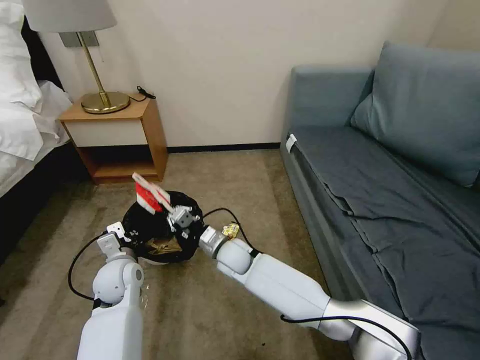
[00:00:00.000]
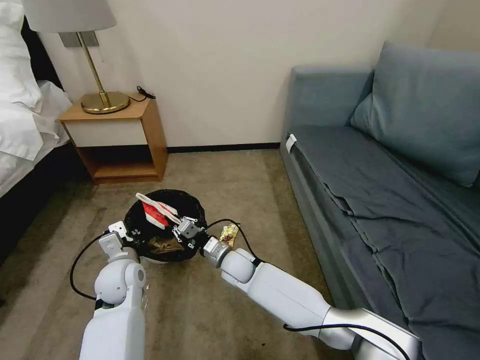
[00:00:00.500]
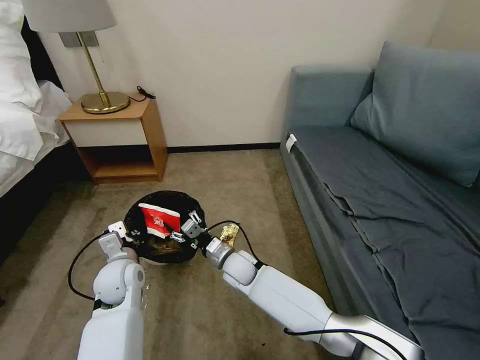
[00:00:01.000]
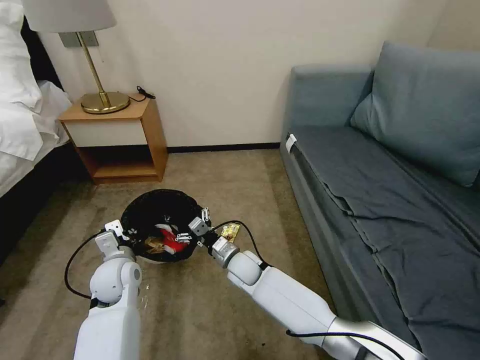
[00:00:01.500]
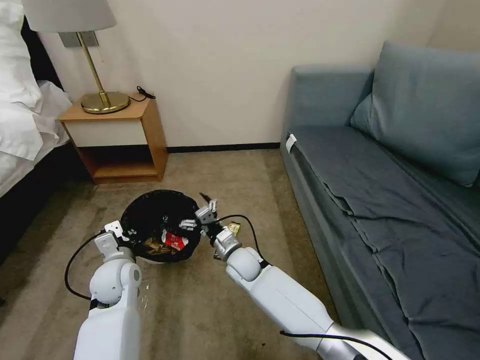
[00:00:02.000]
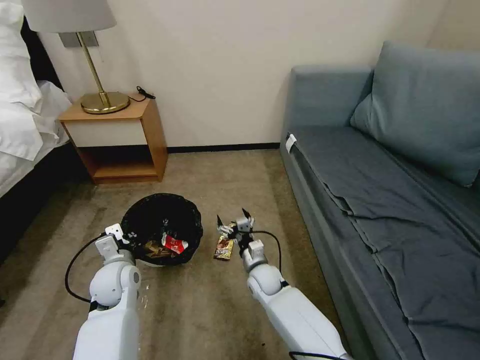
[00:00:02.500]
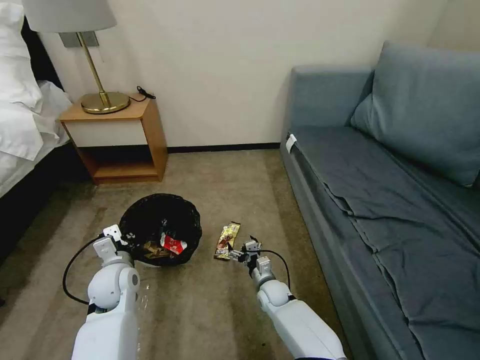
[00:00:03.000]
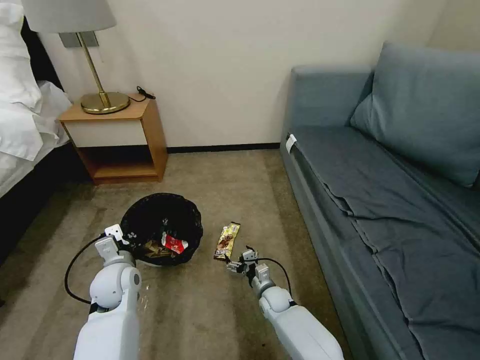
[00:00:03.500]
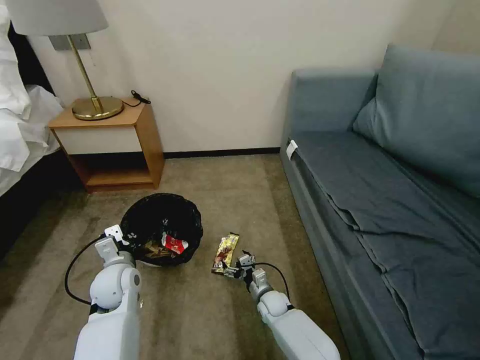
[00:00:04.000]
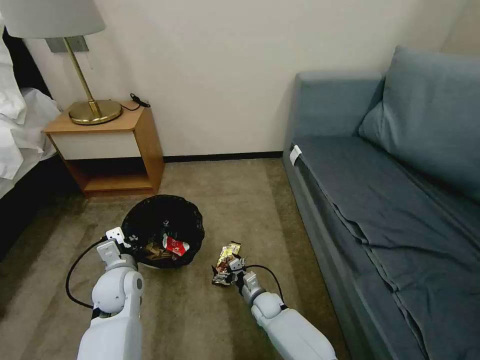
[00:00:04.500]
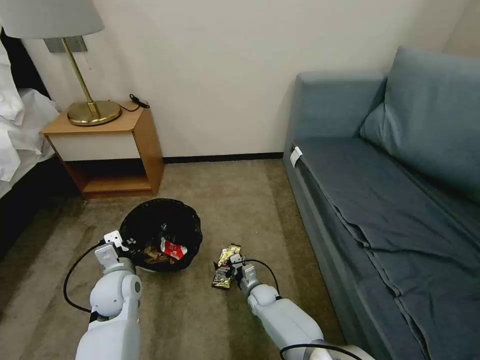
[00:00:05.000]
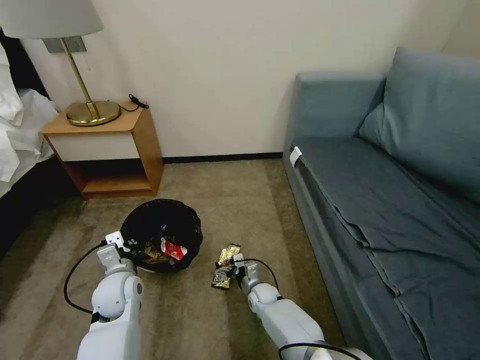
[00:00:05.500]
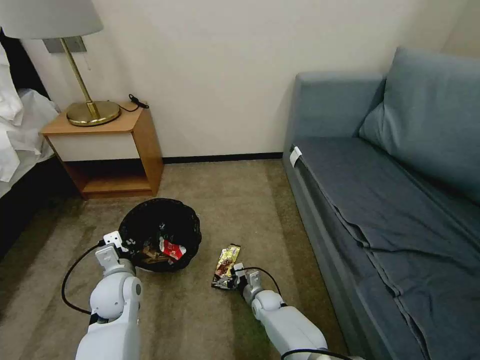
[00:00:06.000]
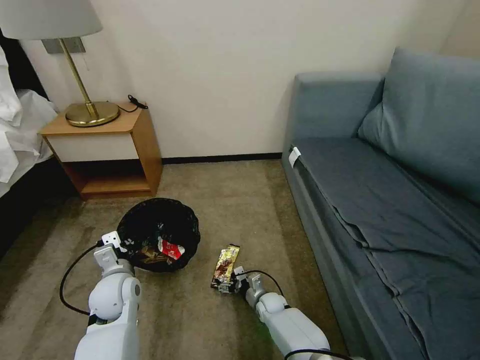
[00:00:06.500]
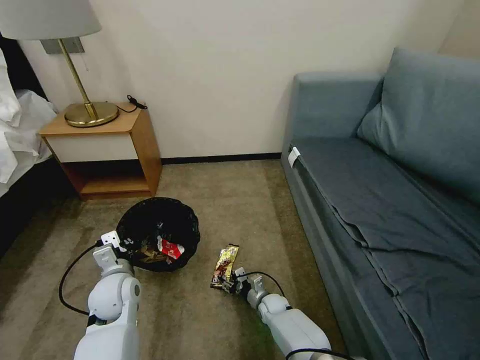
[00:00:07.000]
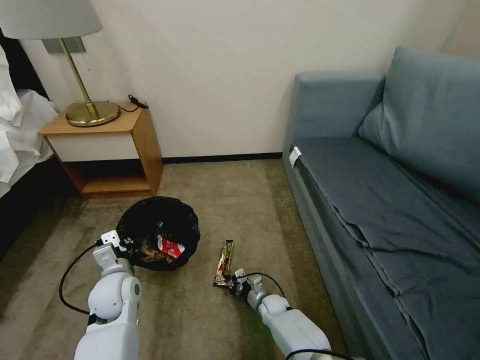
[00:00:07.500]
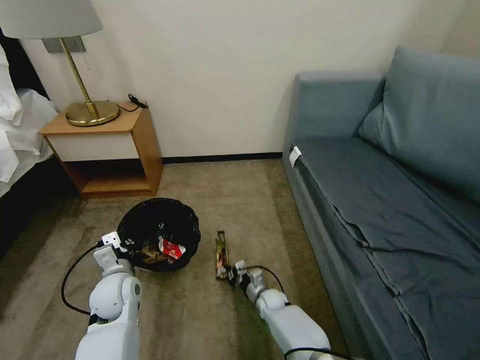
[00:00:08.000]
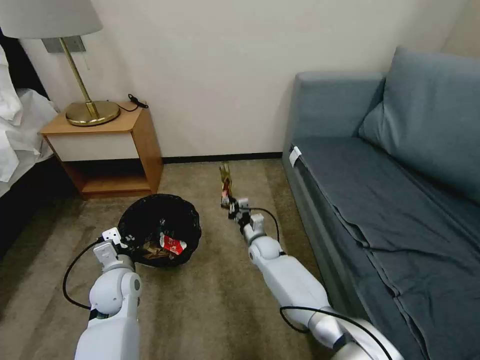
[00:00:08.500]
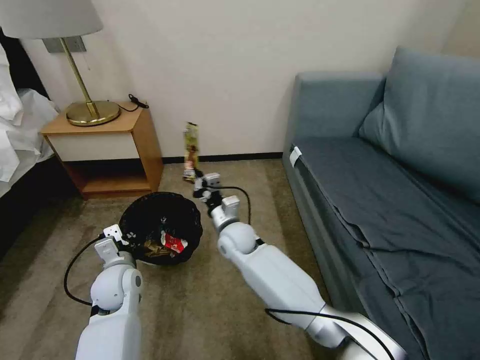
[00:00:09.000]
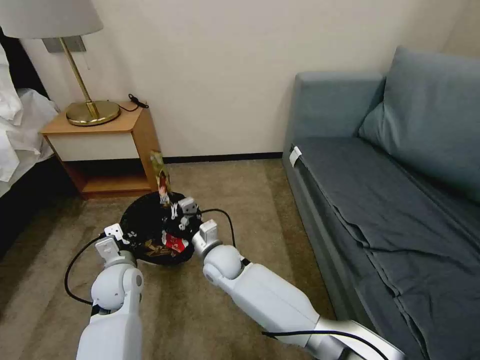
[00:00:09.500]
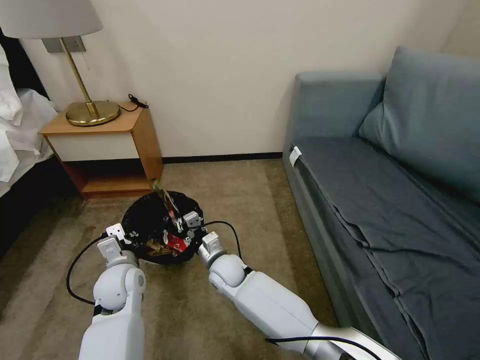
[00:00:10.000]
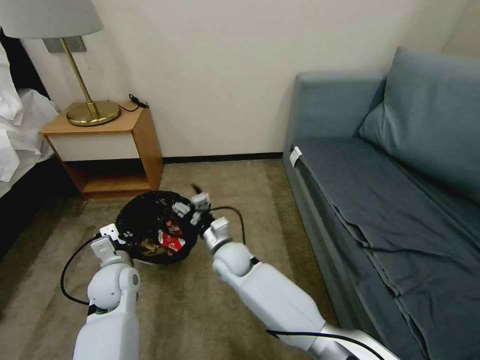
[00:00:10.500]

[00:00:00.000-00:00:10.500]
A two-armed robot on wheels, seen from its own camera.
Task of the whole recording: Pick up the trash bin, then pick up the garbage on the floor and place it into the trash bin.
00:00:00.000 to 00:00:02.000: The right gripper opens its fingers.
00:00:02.000 to 00:00:04.000: The right gripper heads downward and to the right, covering about 20 cm.
00:00:04.000 to 00:00:06.500: The grippers make only small movements.
00:00:06.500 to 00:00:08.500: The right gripper travels upward and forward by roughly 20 cm, and closes up.
00:00:08.500 to 00:00:10.500: The right gripper goes about 15 cm to the left, upward and backward, and opens.

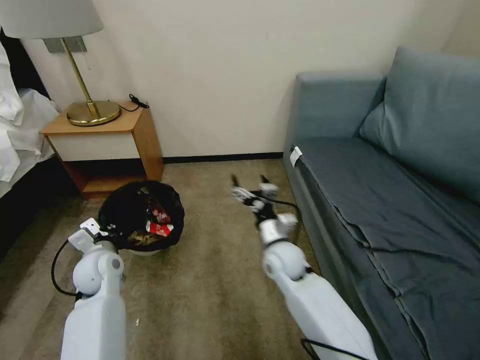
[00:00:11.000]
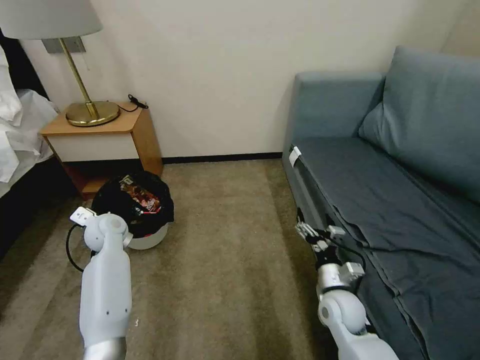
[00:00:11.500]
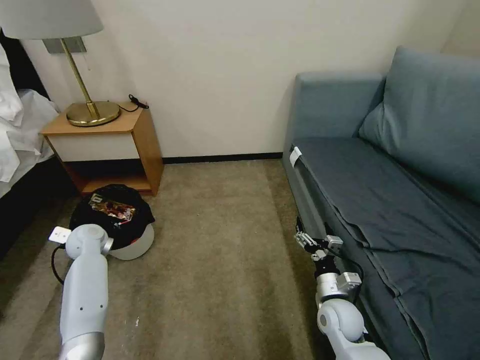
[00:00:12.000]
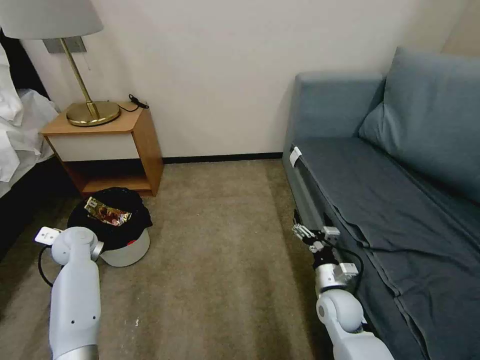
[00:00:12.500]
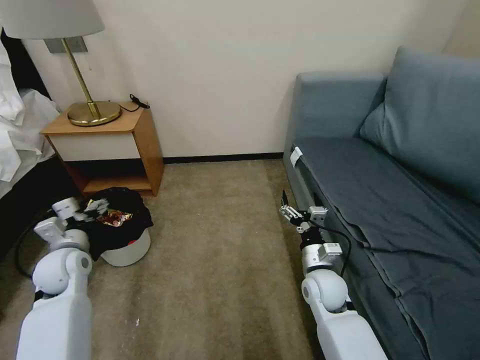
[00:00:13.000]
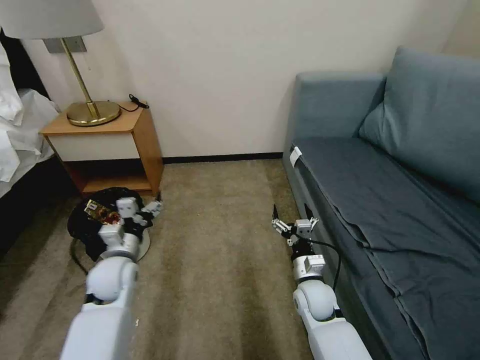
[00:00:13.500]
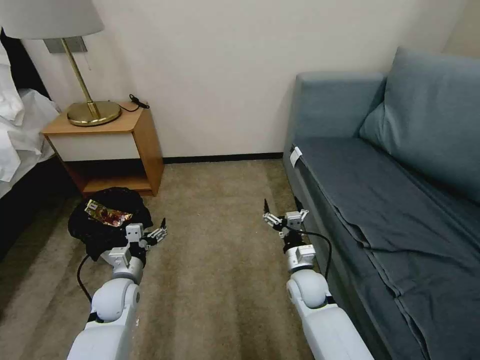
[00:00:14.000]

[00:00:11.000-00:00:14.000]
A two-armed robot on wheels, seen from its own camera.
Task of the whole recording: Pick up the trash bin, then pick up the garbage on the floor and place it into the trash bin.
00:00:11.000 to 00:00:12.500: The left gripper is displaced to the left and forward by about 10 cm, and opens. Meanwhile the right gripper shifts roughly 15 cm to the right, backward and downward.
00:00:12.500 to 00:00:14.000: The right gripper heads to the left and forward, covering some 10 cm, while the left gripper travels to the right, backward and downward by roughly 20 cm, and opens up.

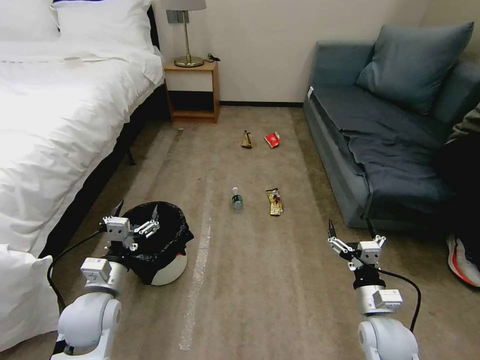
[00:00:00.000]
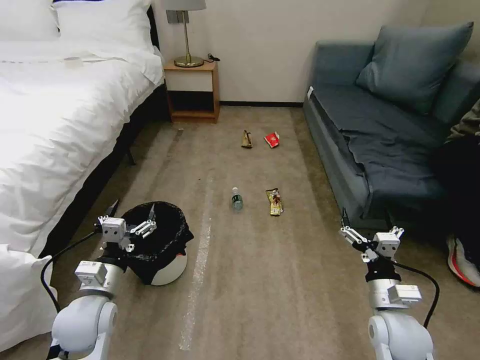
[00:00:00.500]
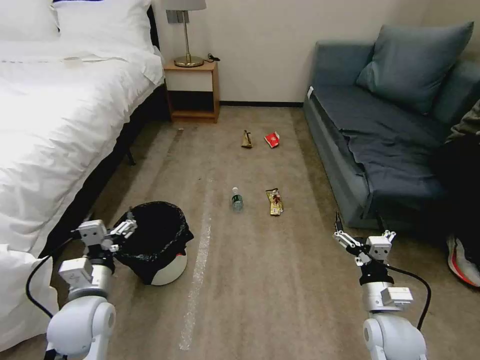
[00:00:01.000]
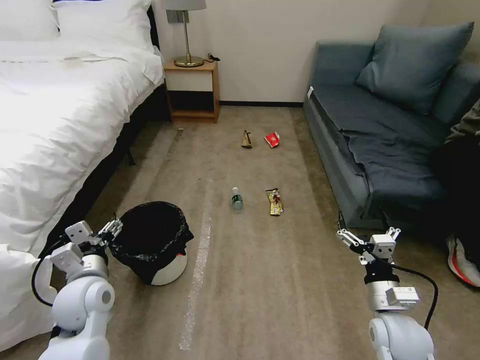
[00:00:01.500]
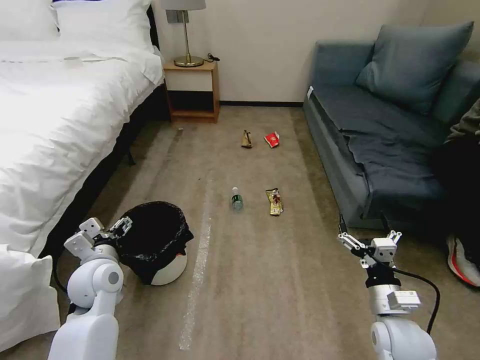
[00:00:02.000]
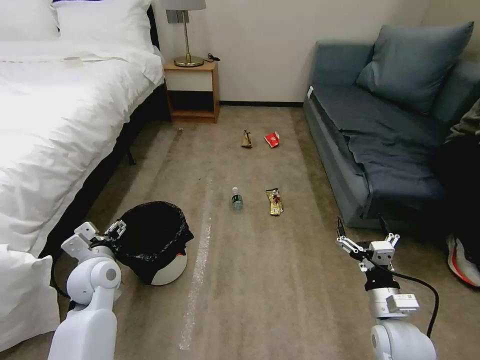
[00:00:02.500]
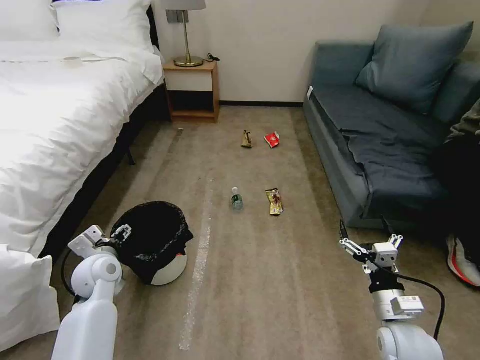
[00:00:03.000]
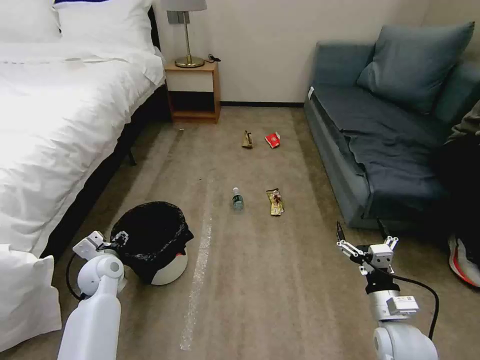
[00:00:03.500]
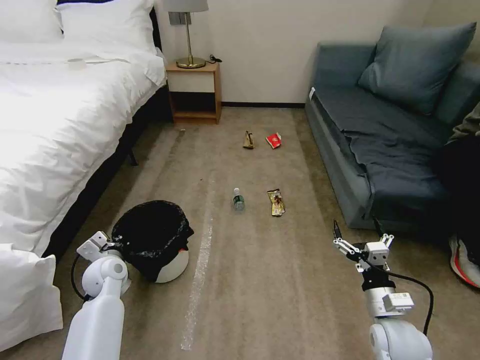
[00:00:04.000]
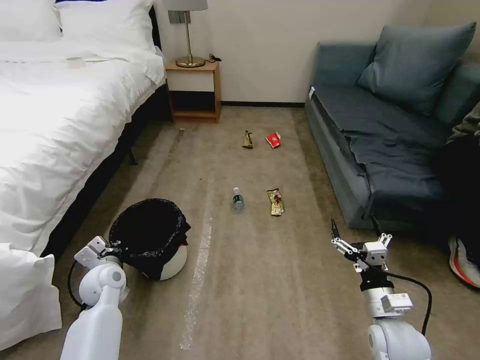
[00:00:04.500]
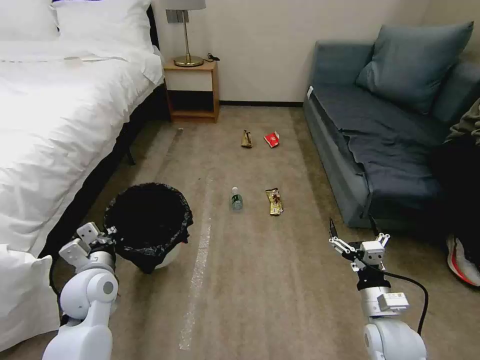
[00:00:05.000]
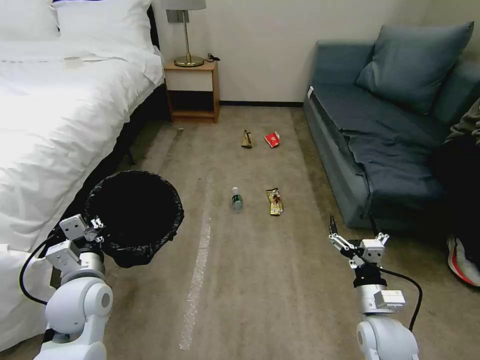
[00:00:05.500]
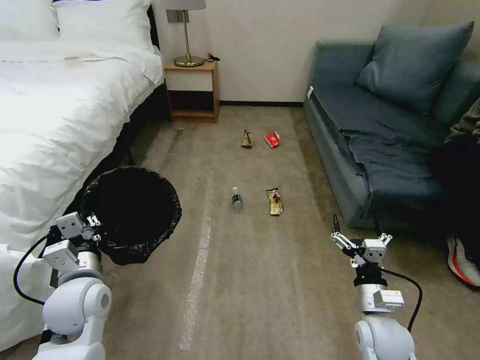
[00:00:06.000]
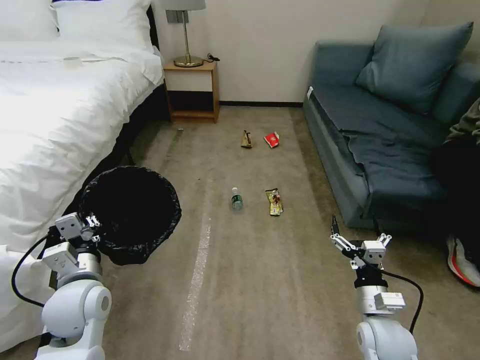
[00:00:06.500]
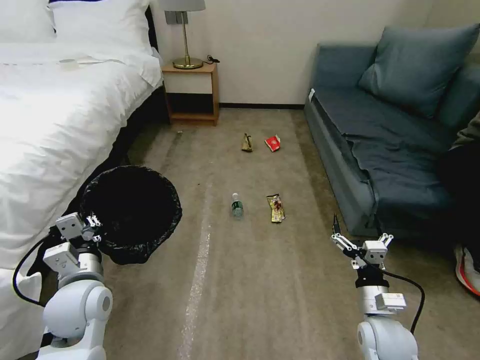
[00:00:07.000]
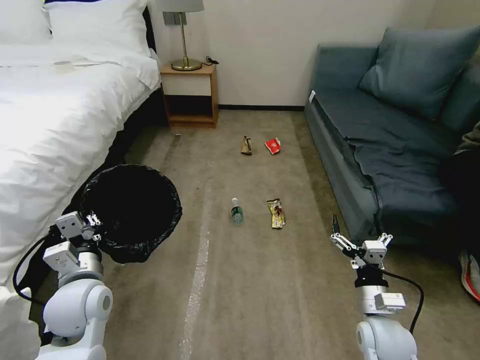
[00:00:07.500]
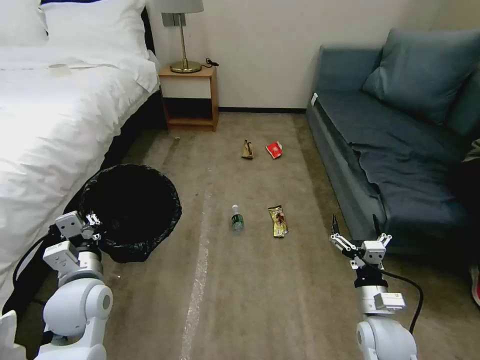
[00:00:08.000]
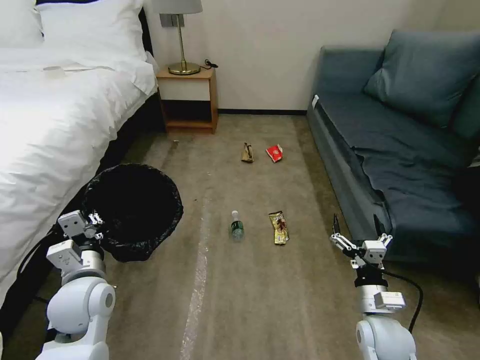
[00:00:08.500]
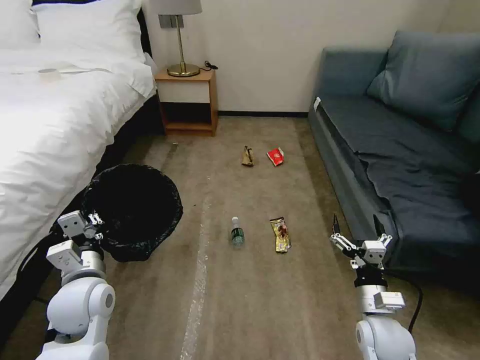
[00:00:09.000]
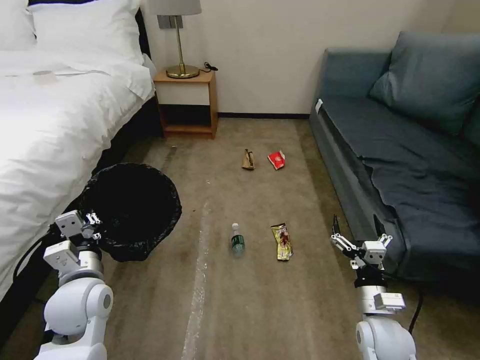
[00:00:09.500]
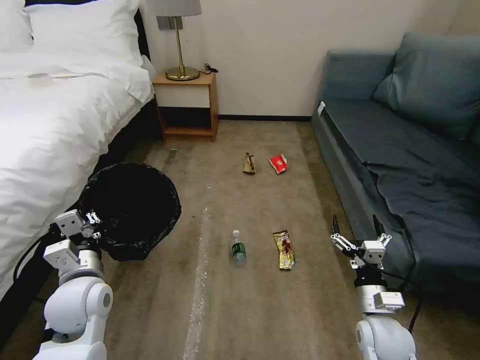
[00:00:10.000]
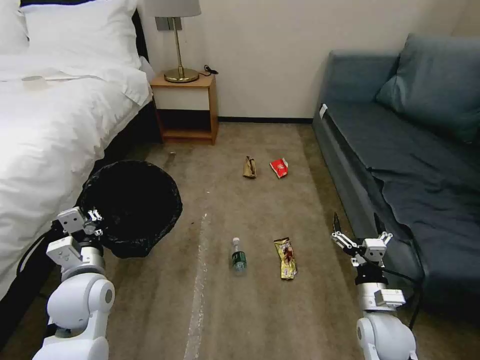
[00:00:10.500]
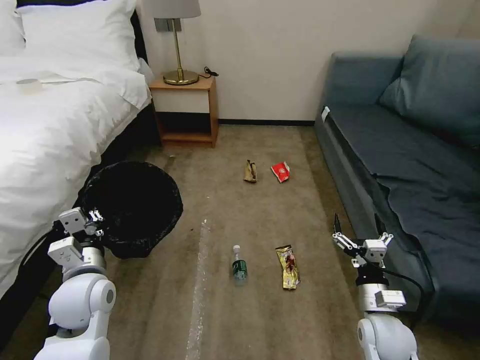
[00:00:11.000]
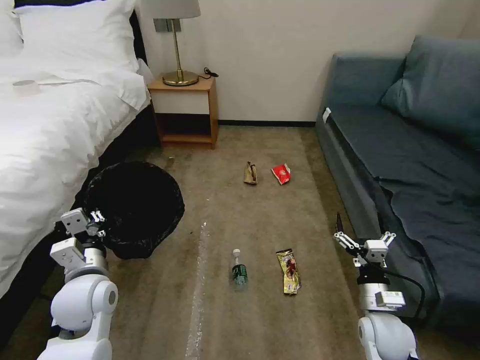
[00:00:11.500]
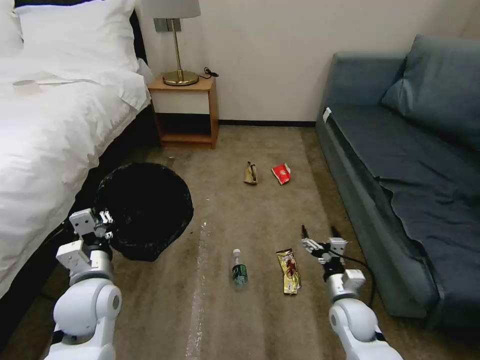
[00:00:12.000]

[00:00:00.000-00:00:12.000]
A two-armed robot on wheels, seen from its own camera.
Task of the whole recording: Pick up the trash bin, then pick up the garbage on the floor and place it into the trash bin.
00:00:02.000 to 00:00:04.000: The left gripper shifts about 10 cm downward, and closes.
00:00:04.000 to 00:00:06.000: The left gripper travels upward and backward by roughly 15 cm.
00:00:06.000 to 00:00:10.000: The two grippers keep their place.
00:00:10.000 to 00:00:12.000: The right gripper goes about 5 cm downward and forward.
